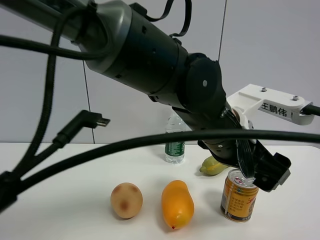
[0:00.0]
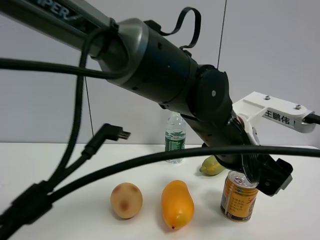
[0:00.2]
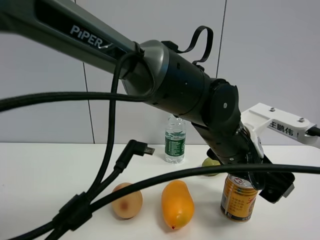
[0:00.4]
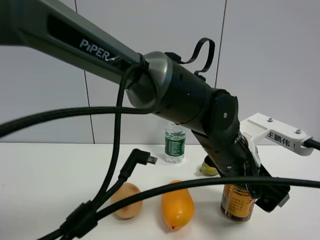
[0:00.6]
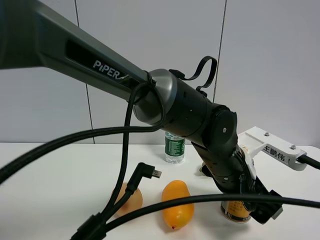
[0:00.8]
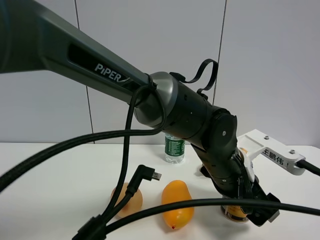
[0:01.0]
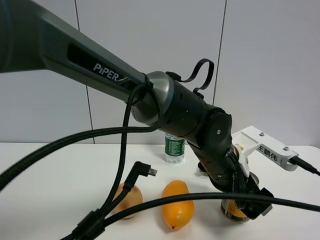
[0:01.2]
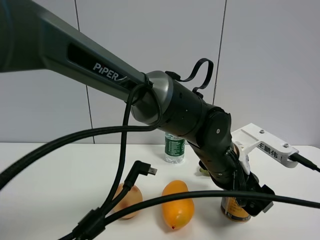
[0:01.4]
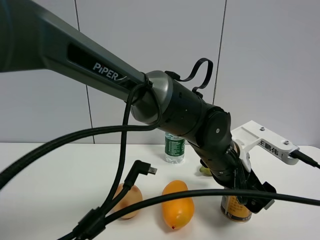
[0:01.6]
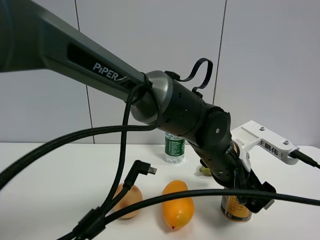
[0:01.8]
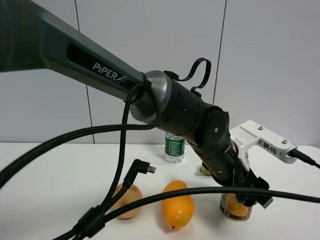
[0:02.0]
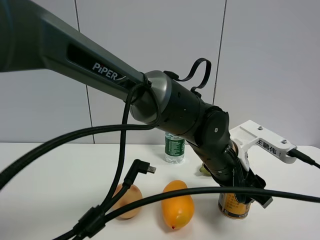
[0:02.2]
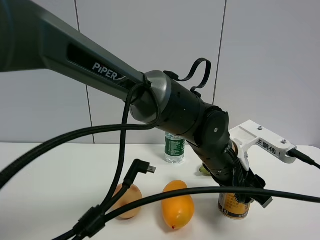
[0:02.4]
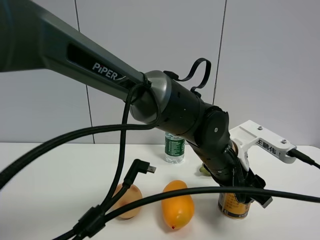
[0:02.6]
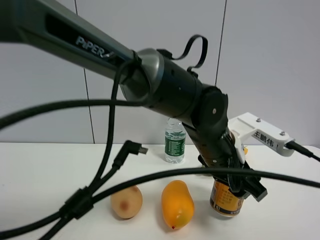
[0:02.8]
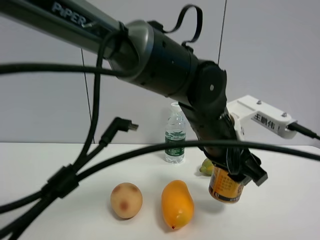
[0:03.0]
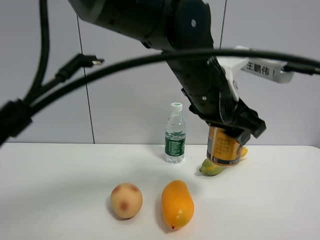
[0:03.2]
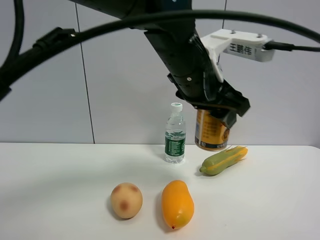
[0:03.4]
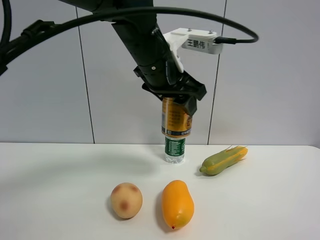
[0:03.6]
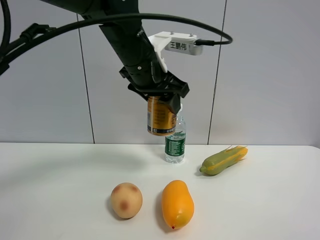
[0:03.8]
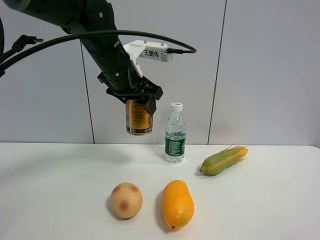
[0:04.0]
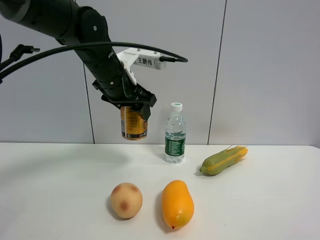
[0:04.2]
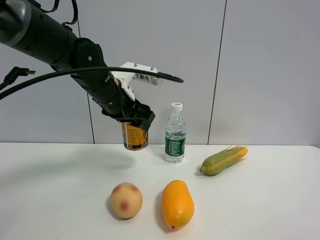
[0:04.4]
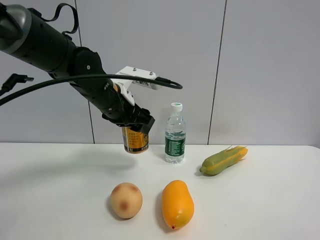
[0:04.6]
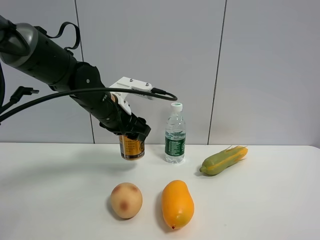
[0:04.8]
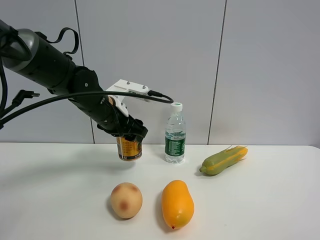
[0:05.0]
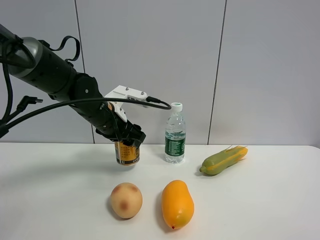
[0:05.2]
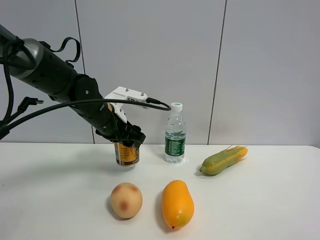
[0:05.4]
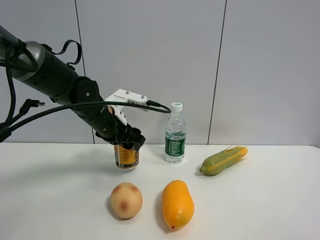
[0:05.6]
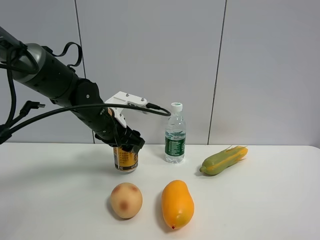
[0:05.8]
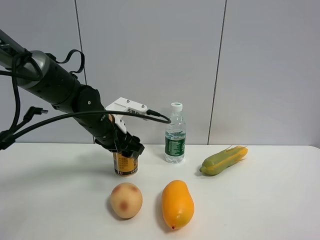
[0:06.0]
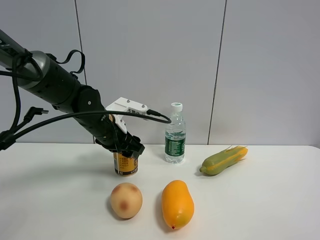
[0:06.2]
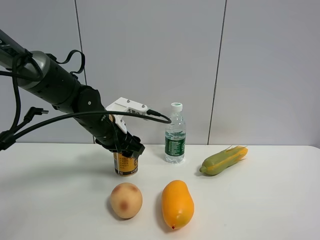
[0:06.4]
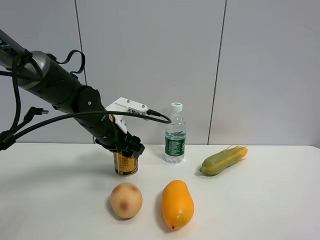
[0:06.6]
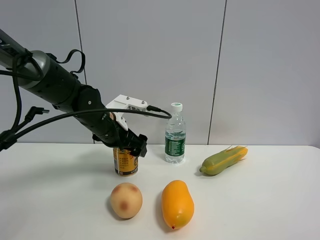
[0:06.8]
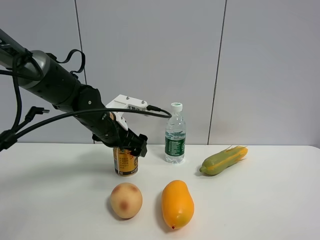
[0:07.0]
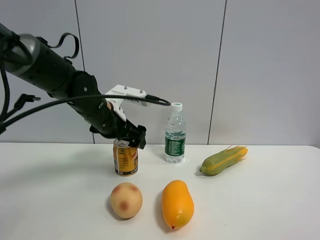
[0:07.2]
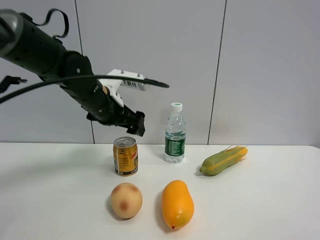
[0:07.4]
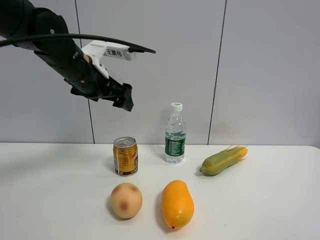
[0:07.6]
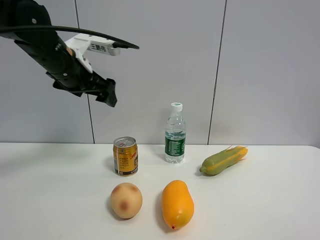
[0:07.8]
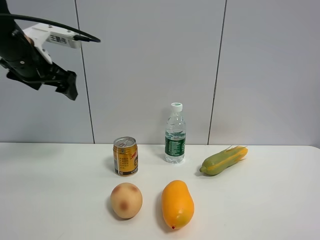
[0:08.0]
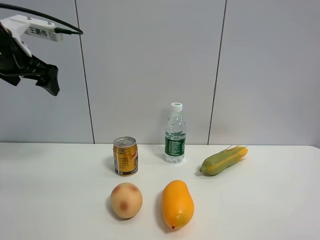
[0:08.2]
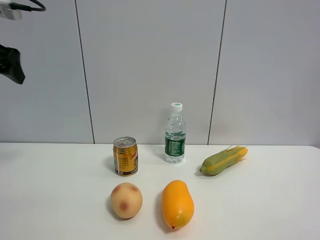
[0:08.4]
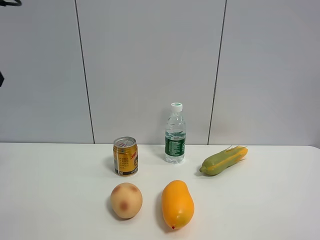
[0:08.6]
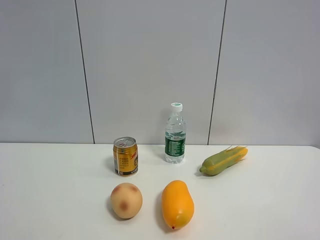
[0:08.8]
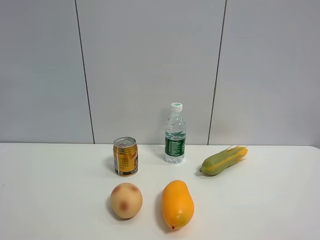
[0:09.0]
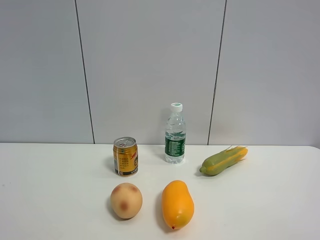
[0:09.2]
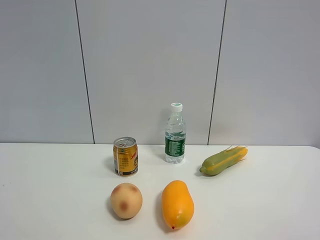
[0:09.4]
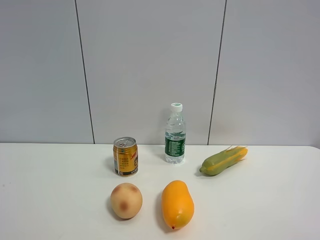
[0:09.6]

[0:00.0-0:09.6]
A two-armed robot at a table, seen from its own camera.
Task of the whole recording: the gripper move the object.
Step, 0:00.0 to 0:02.4: Grasp the red bull with the left gripper.
Step, 0:02.6 to 0:06.8: Place the red bull on the table with the left gripper.
0:00.0 to 0:01.6: The left gripper shifts some 5 cm downward.
0:01.6 to 0:03.2: The left gripper is displaced upward by approximately 15 cm, and closes up.
0:03.2 to 0:04.8: The left gripper travels to the left, forward and downward by approximately 20 cm.
0:04.8 to 0:06.4: The grippers move only a little.
0:06.4 to 0:08.0: The left gripper heads upward and to the left, covering about 20 cm, and opens up.
0:08.0 to 0:09.6: The left gripper goes some 40 cm backward.

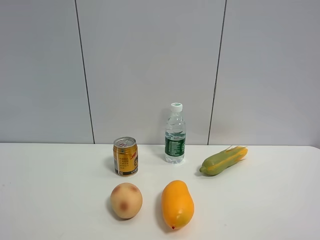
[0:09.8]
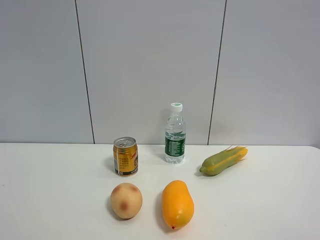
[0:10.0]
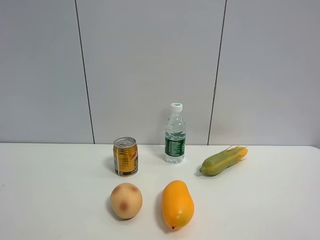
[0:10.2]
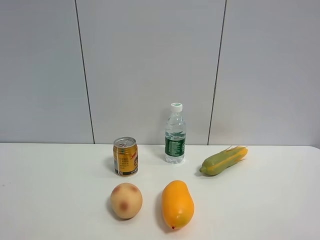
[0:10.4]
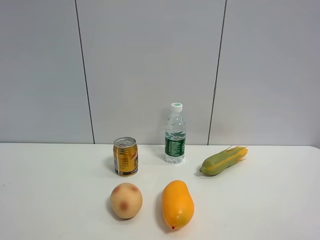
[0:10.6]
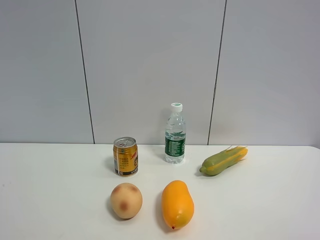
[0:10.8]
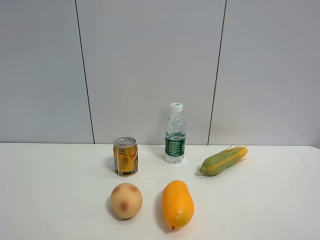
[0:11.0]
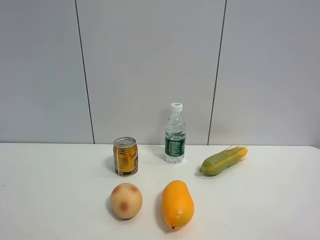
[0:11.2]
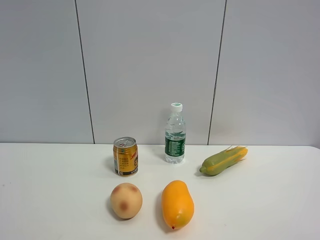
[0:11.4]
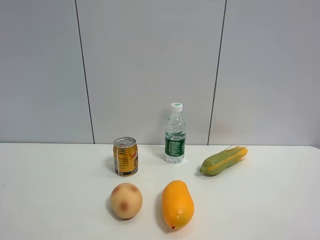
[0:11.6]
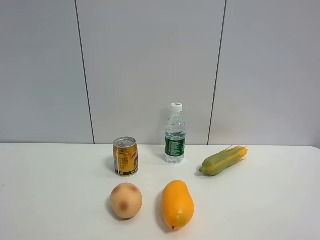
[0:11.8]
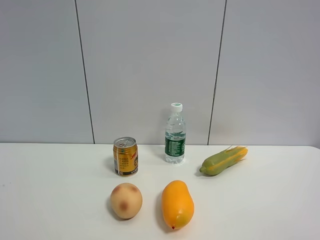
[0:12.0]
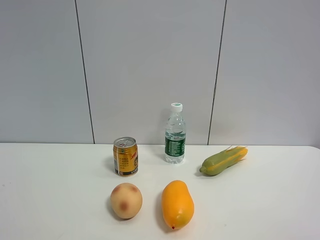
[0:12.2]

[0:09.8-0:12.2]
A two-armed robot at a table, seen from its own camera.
Task of the whole recording: the gripper move the object.
0:11.0 to 0:12.2: Both grippers stay put.
